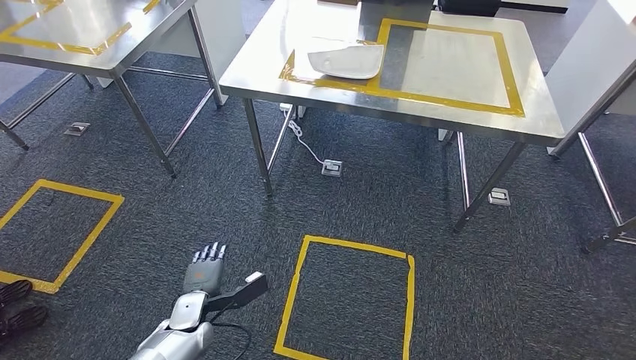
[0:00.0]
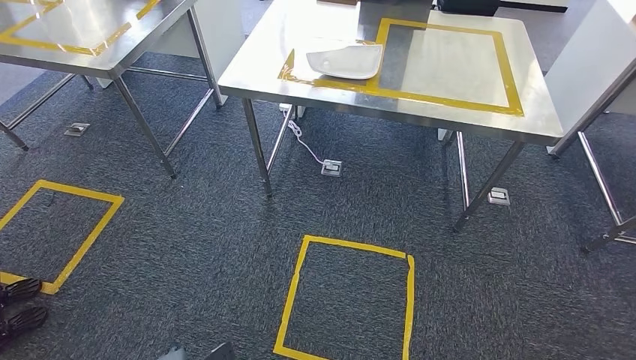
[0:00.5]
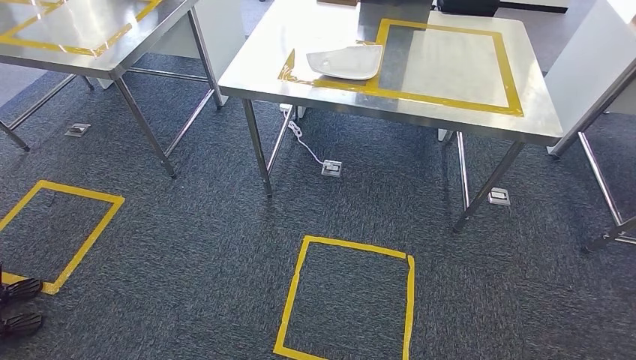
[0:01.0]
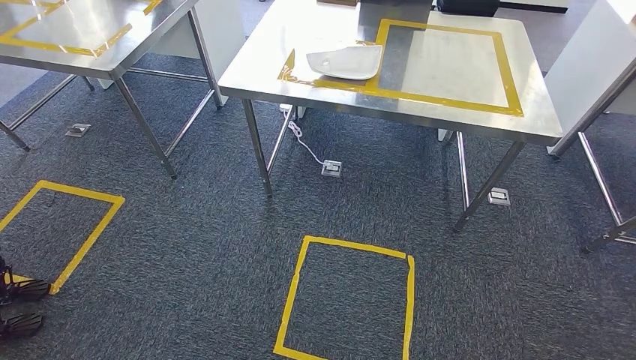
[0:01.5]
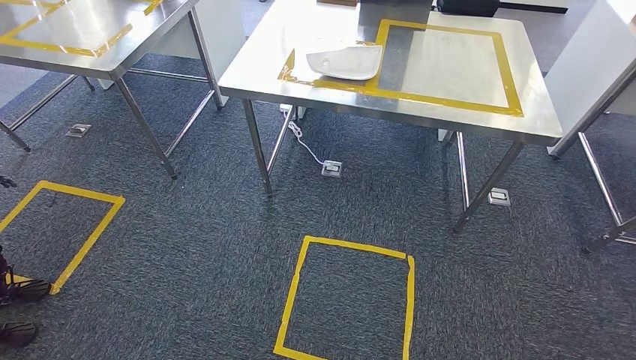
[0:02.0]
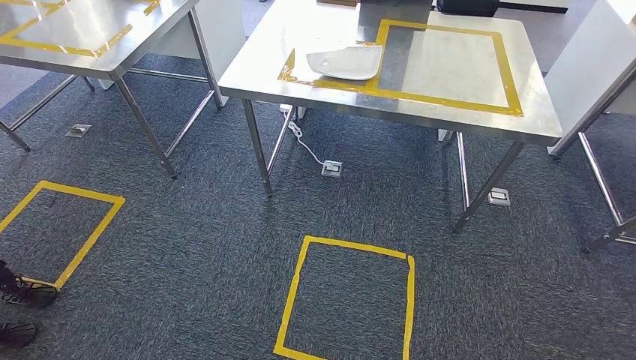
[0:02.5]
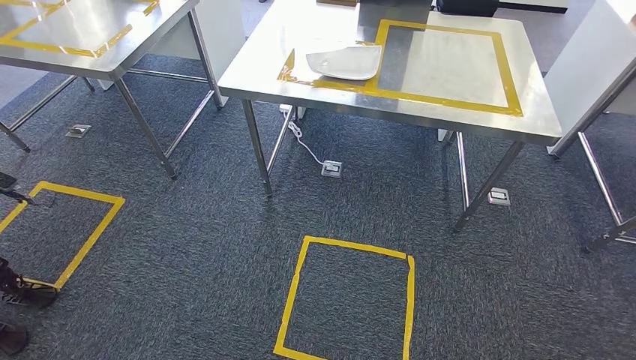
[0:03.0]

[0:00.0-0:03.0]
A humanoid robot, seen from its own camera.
Step, 0:00.0 to 0:03.0: Return to the initial position at the workbench.
0:00.0 to 0:01.5: The right hand moves roughly 5 cm, while the left hand shifts about 20 cm backward.
